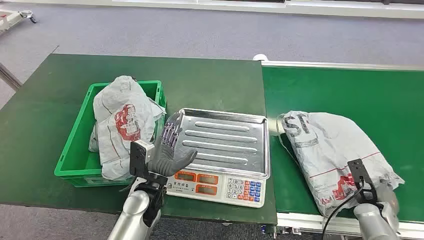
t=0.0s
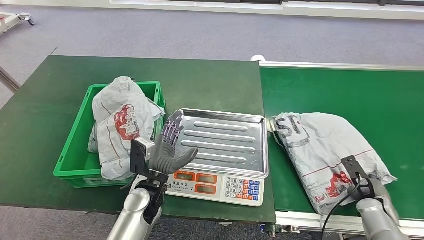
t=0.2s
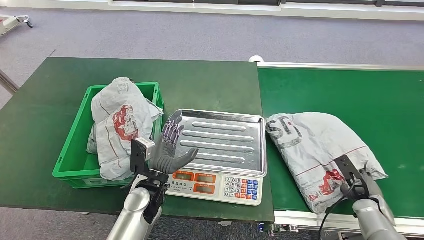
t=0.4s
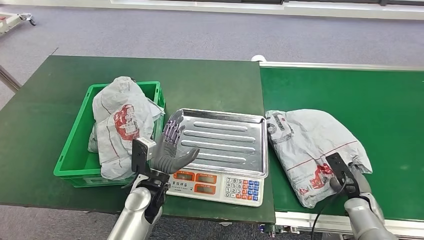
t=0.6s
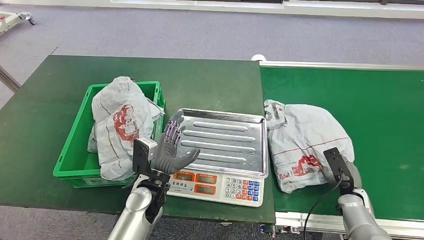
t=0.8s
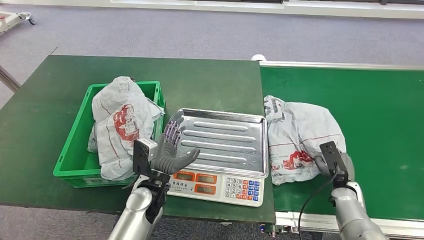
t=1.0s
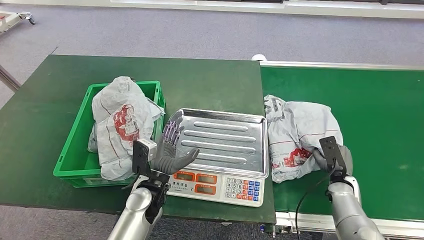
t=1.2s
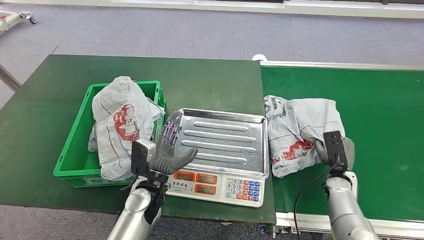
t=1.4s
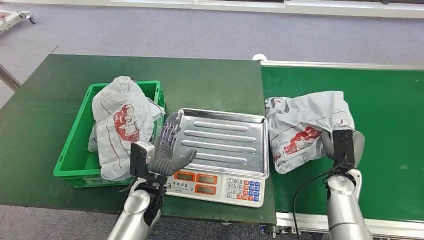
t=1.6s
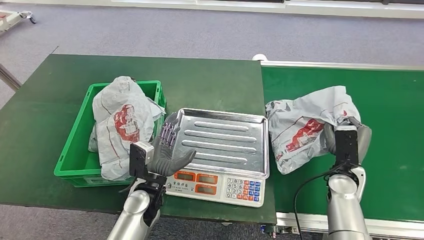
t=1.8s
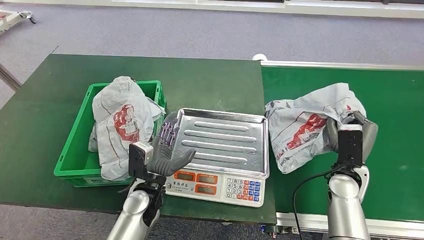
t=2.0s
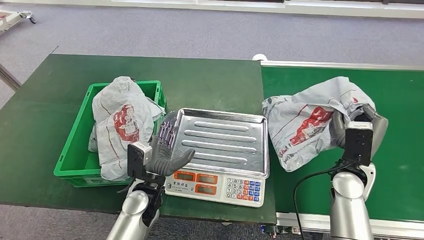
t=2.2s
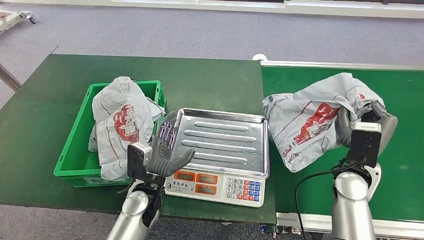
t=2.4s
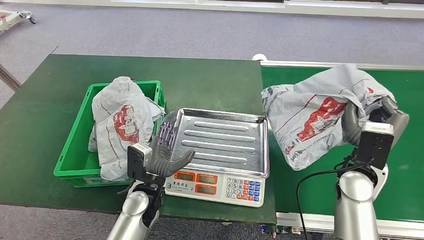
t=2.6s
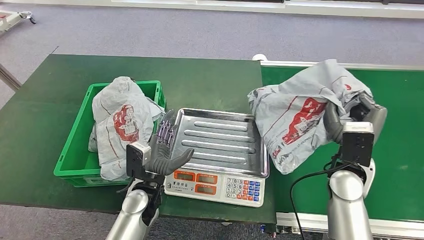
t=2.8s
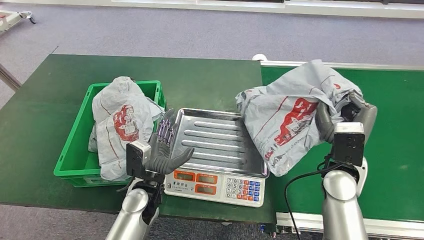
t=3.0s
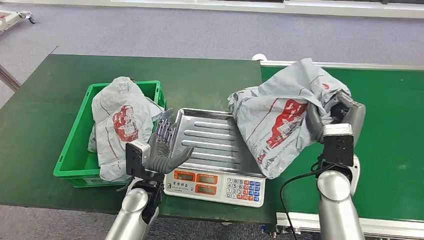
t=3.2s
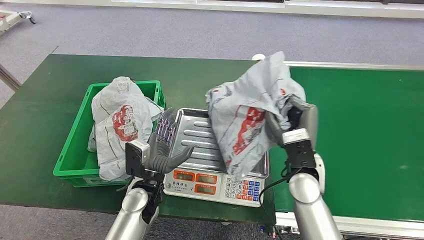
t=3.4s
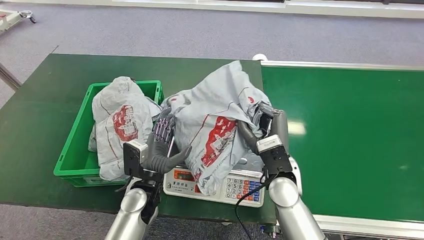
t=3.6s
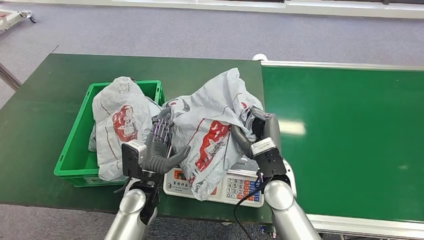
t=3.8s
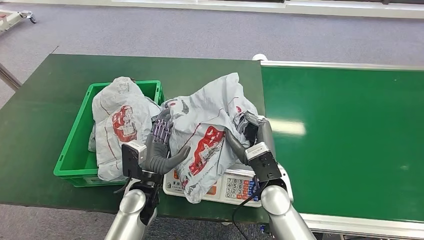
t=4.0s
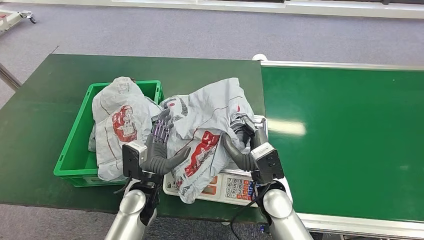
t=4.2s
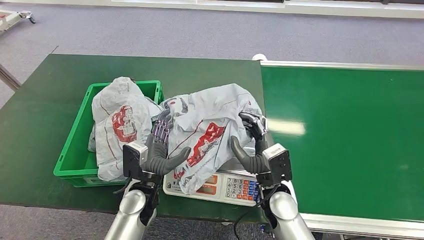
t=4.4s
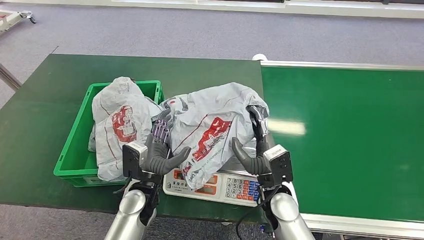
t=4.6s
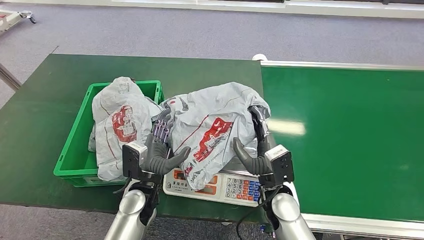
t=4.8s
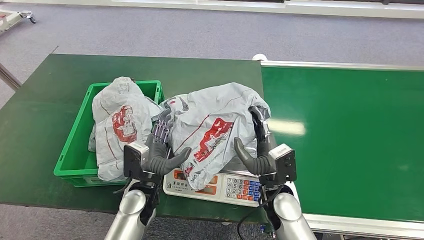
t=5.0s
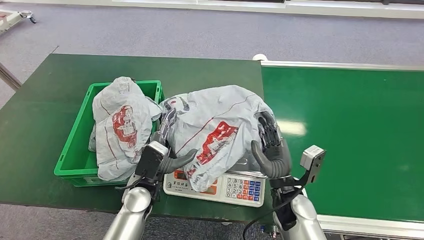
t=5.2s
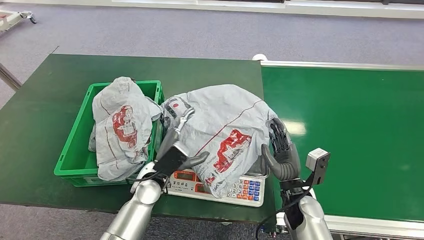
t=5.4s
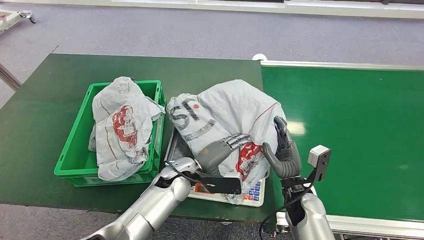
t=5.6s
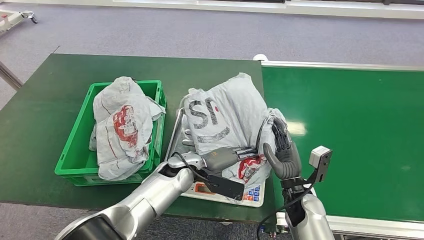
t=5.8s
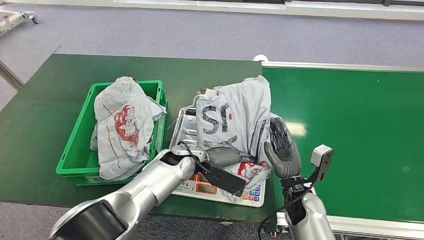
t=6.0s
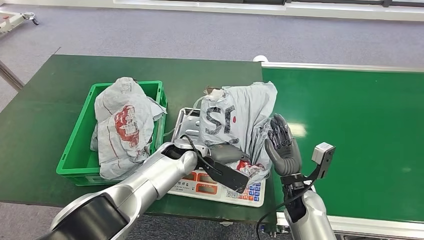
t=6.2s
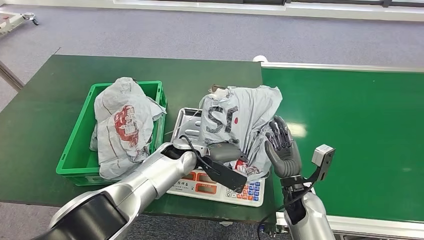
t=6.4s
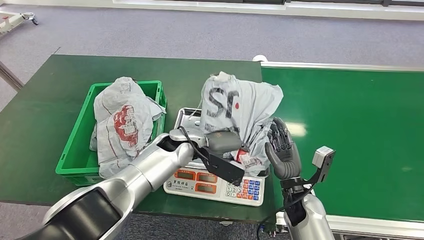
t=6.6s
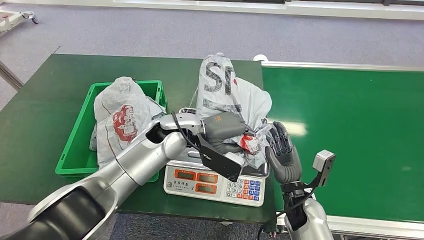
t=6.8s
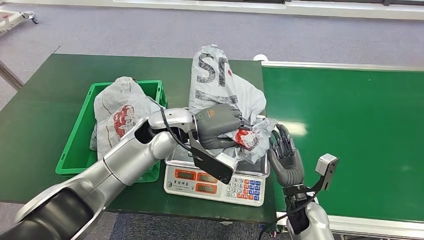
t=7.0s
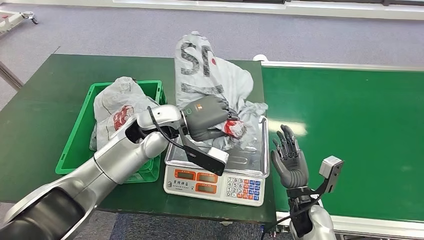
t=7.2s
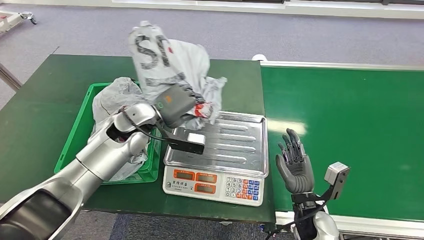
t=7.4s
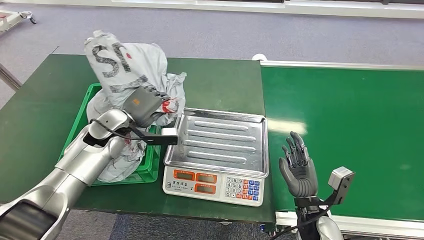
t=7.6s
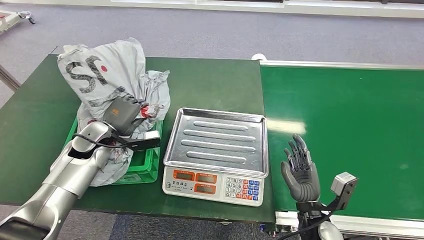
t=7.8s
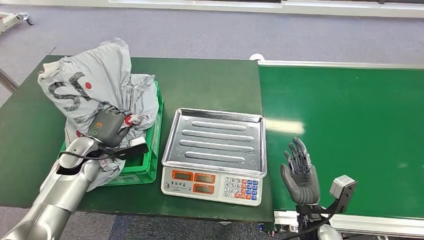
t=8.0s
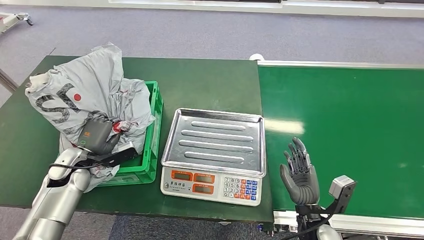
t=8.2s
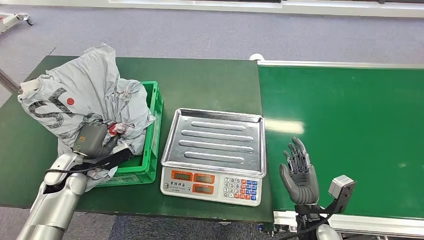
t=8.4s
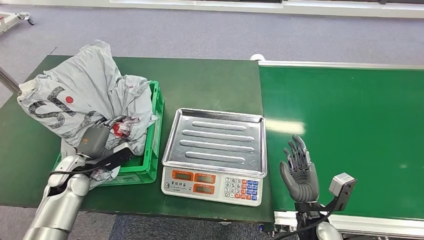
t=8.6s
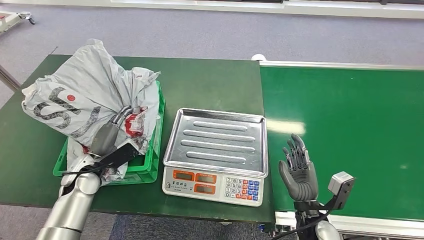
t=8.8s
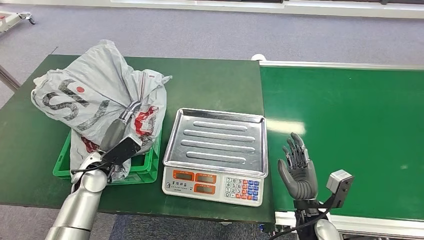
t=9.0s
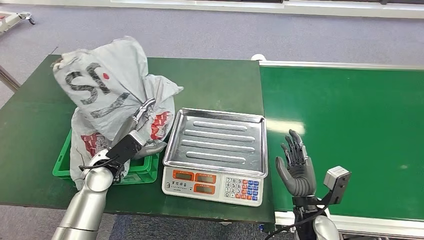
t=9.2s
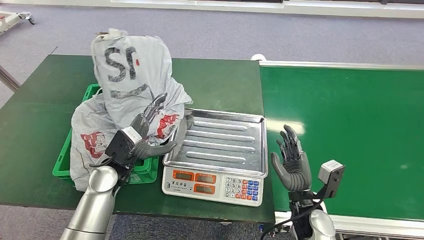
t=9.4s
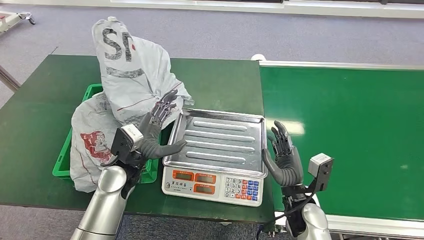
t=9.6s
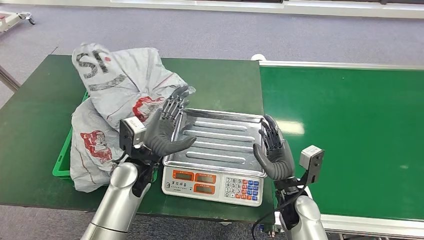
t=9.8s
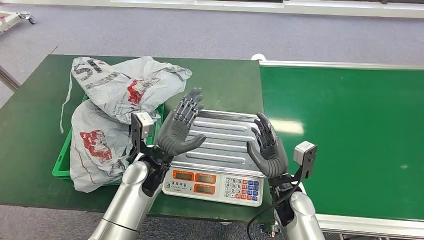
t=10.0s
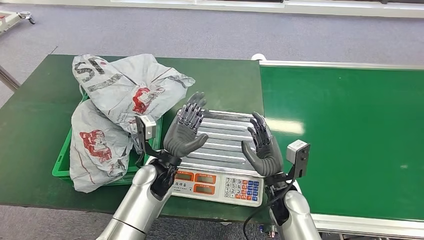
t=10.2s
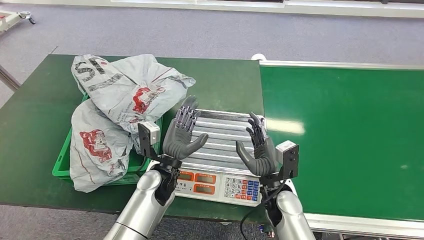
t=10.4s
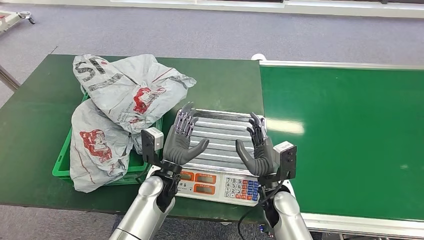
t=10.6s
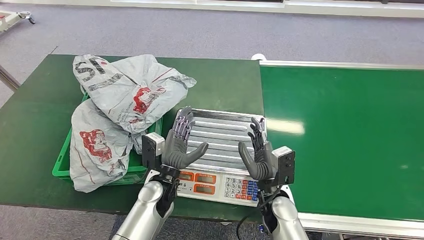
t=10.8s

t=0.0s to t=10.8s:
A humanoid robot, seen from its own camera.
Step, t=0.0s to t=2.8s: Pick up the package from the conveyor belt.
Step, t=3.0s to t=5.2s: Place the package onto the inbound machine.
Step, t=5.4s to t=8.2s: Pick up the package from the inbound machine.
Step, t=8.6s to t=10.8s: Place the package into the parcel locker.
t=1.6s to t=3.0s: The right hand moves upward and to the left, some 15 cm.
t=7.8s to t=9.2s: The left hand heads to the right and backward, covering some 10 cm.

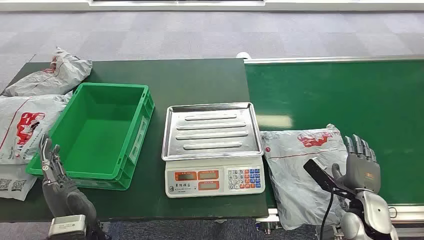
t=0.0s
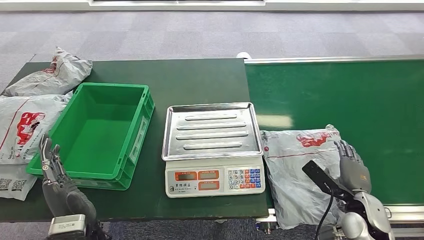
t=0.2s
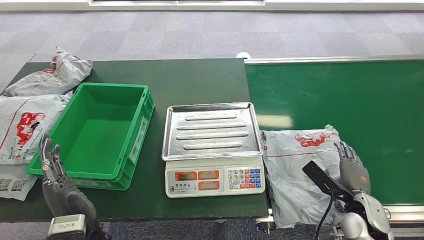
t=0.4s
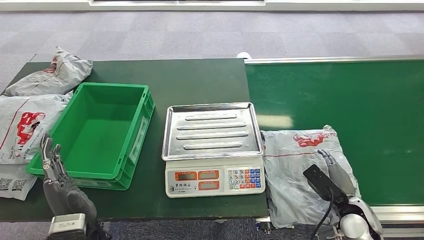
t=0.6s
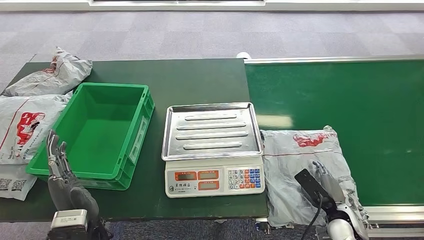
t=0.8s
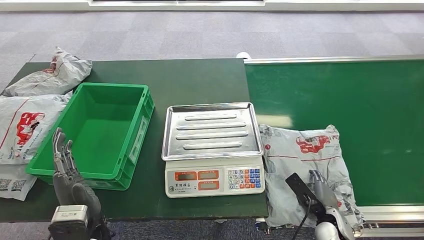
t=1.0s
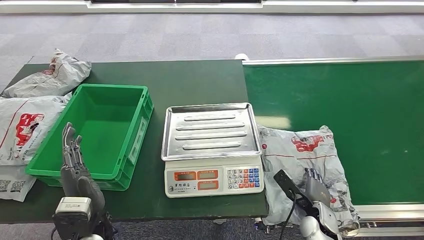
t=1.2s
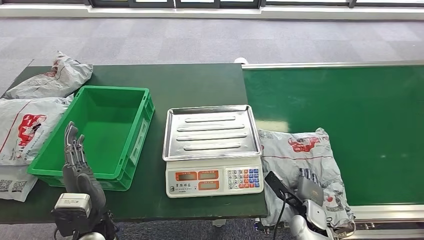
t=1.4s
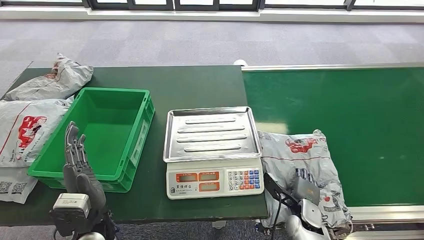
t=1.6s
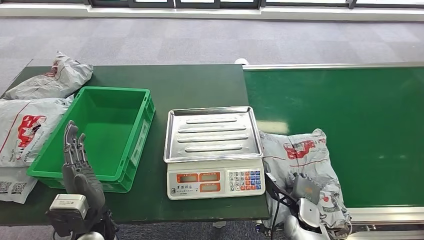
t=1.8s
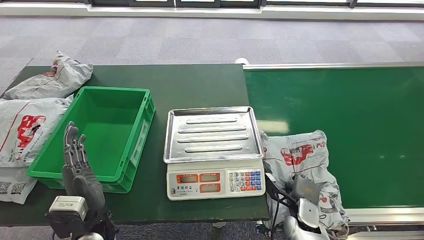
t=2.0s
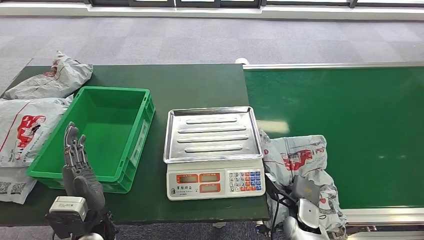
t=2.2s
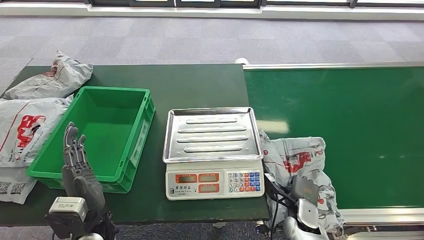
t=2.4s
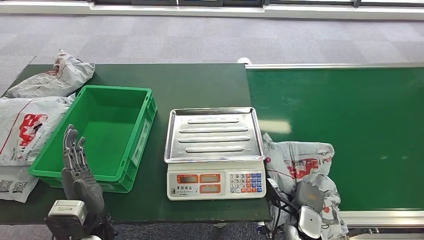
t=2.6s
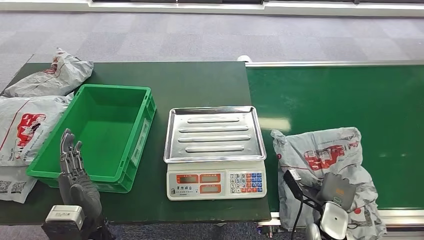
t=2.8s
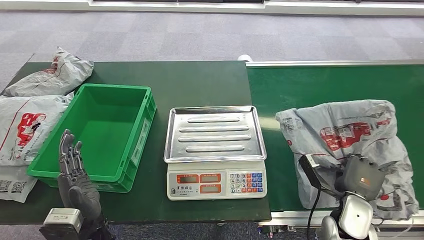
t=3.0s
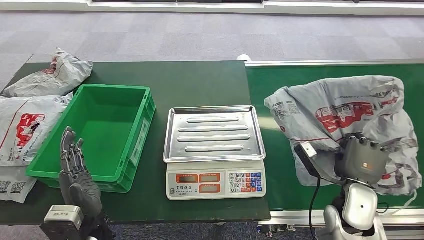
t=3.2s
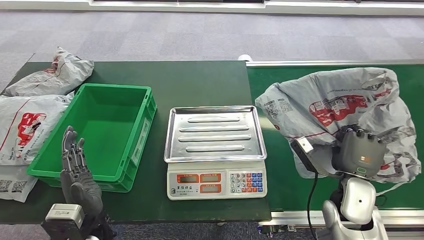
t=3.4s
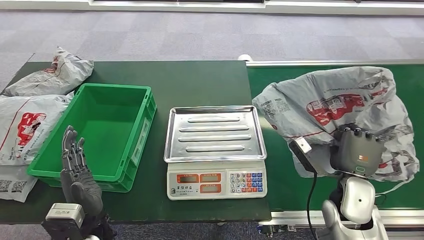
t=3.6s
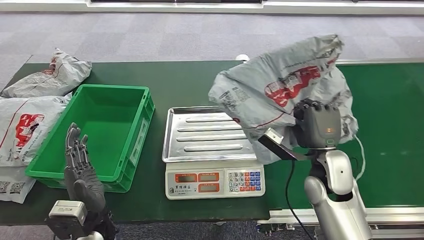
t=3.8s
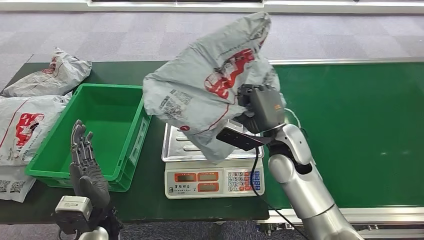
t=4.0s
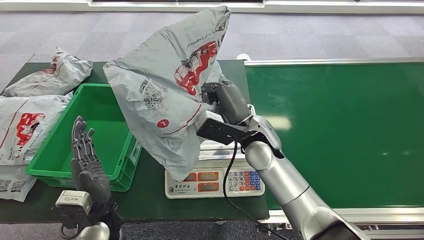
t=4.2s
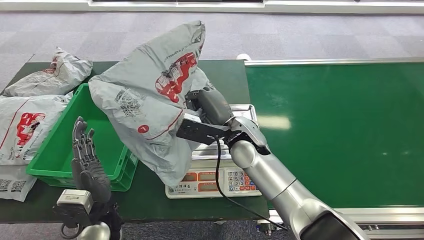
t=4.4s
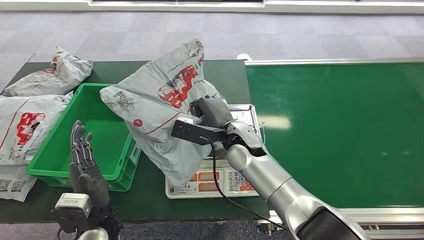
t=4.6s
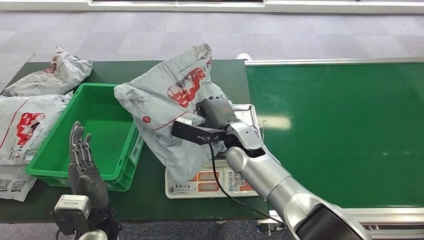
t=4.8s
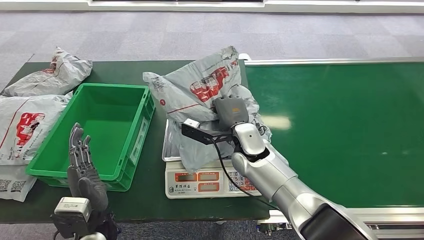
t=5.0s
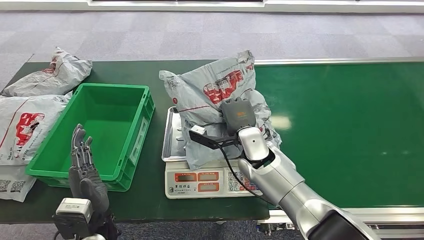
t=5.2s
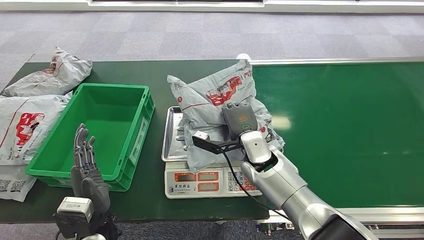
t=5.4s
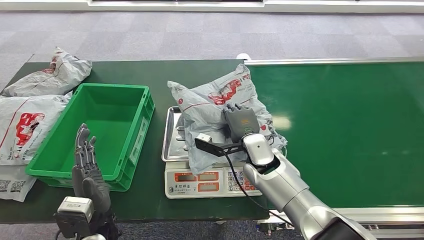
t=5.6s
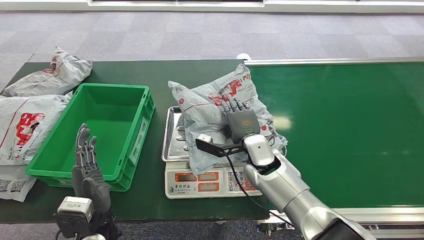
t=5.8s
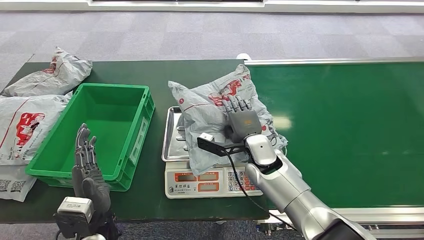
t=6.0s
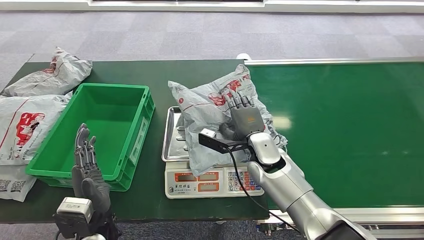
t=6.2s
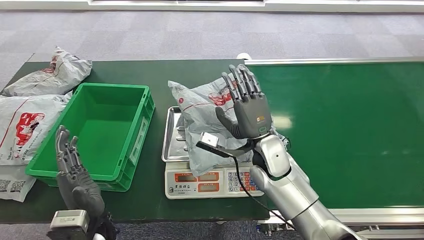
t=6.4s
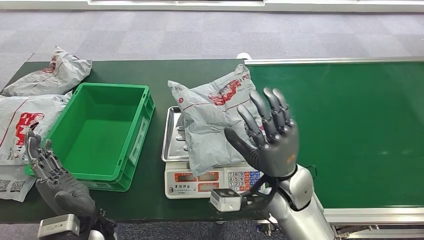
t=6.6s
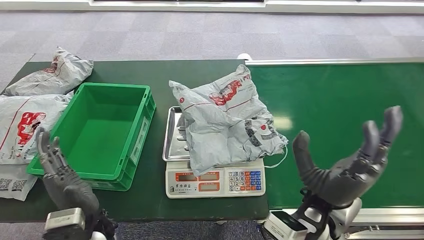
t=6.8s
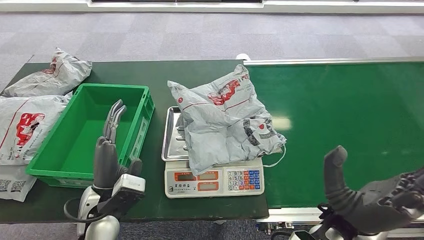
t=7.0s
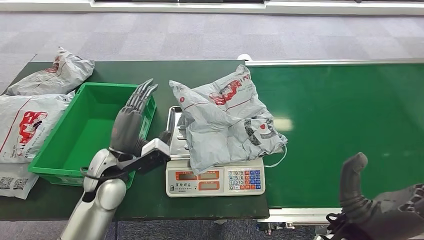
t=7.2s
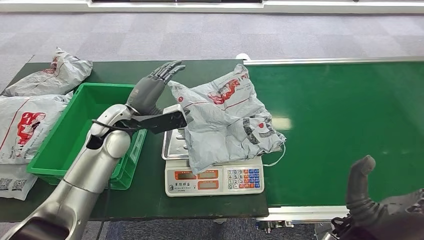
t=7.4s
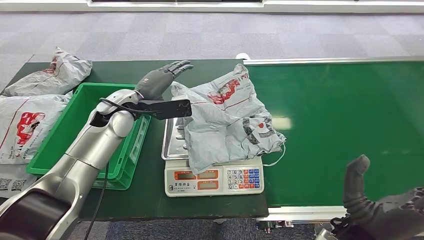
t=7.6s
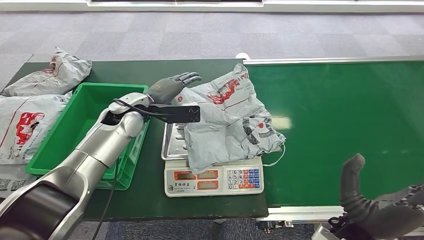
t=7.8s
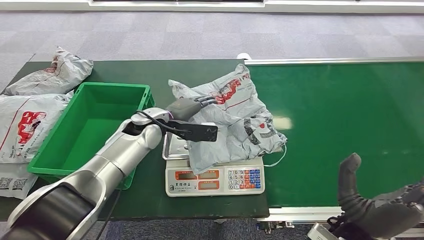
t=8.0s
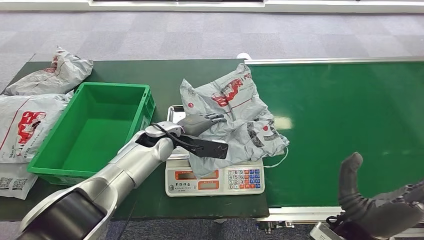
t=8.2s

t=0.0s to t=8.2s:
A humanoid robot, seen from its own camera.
Step, t=0.0s to t=3.0s: Pick up the package from the conveyor belt.
Step, t=3.4s to t=6.4s: Place the package onto the inbound machine.
